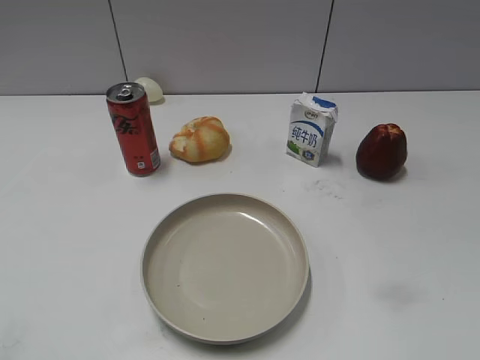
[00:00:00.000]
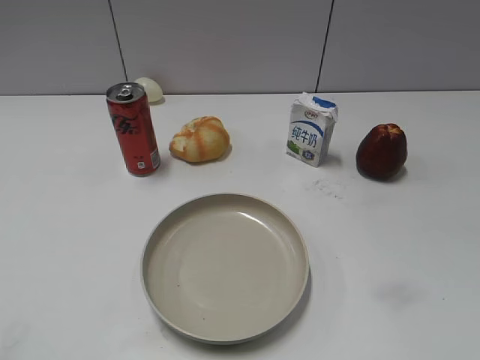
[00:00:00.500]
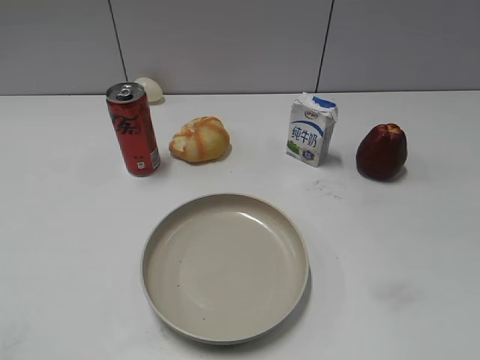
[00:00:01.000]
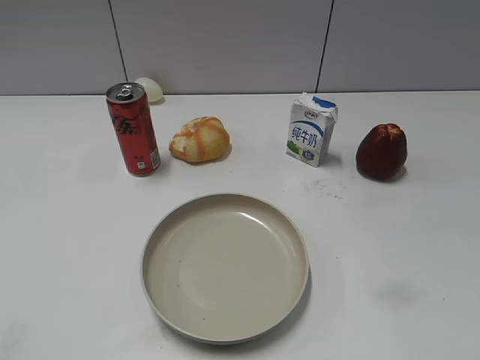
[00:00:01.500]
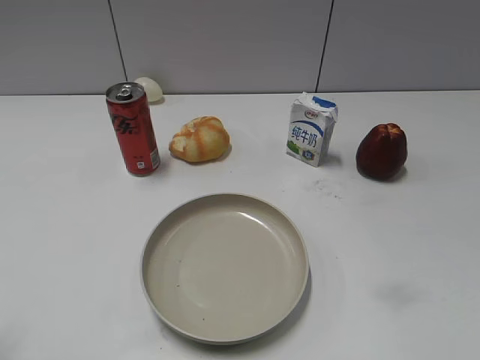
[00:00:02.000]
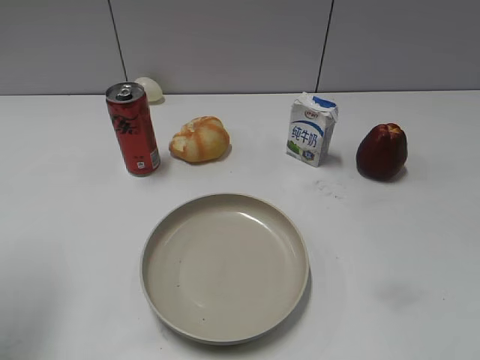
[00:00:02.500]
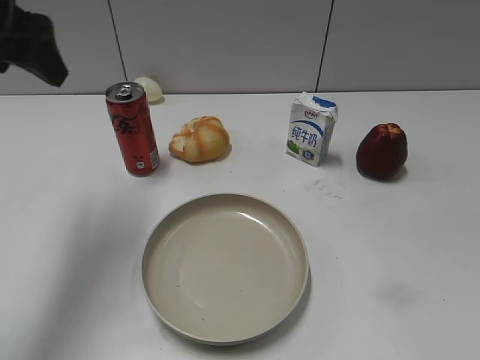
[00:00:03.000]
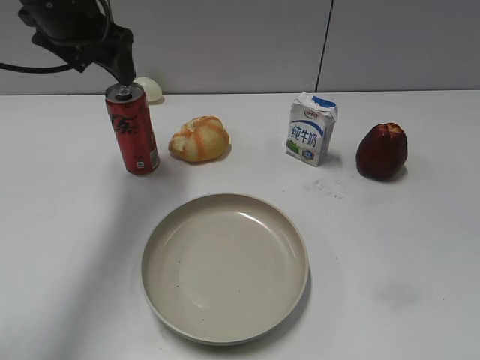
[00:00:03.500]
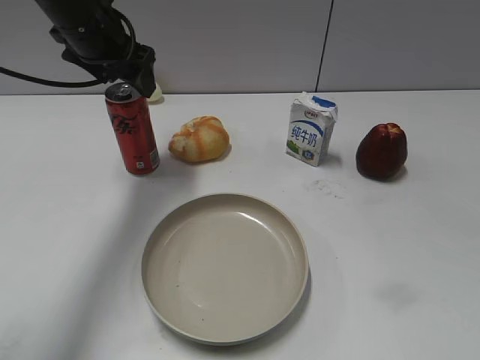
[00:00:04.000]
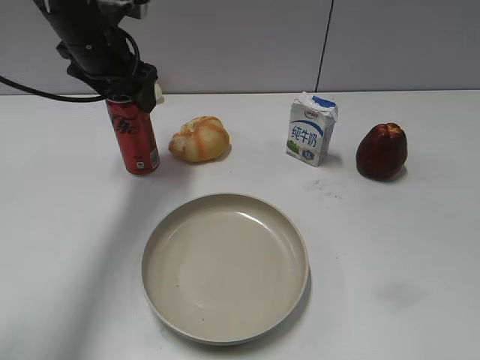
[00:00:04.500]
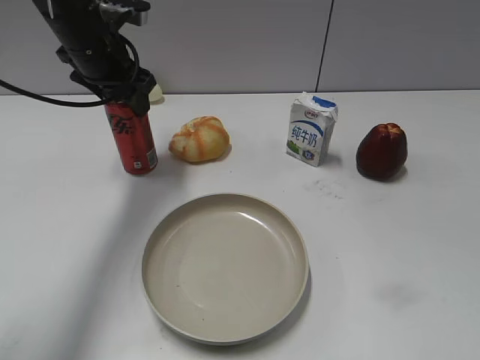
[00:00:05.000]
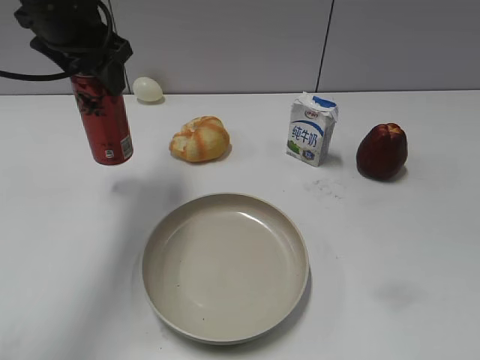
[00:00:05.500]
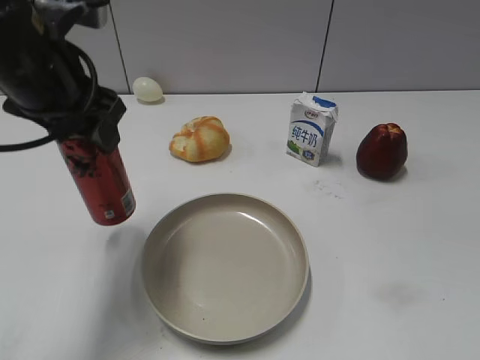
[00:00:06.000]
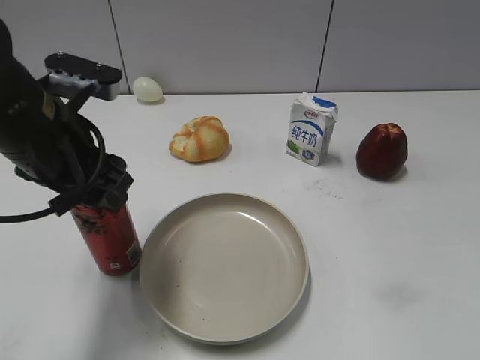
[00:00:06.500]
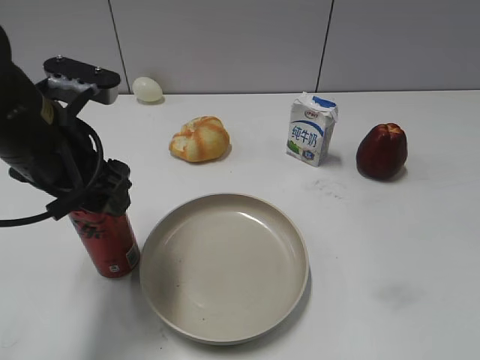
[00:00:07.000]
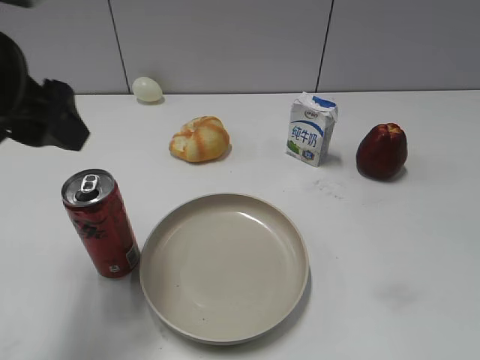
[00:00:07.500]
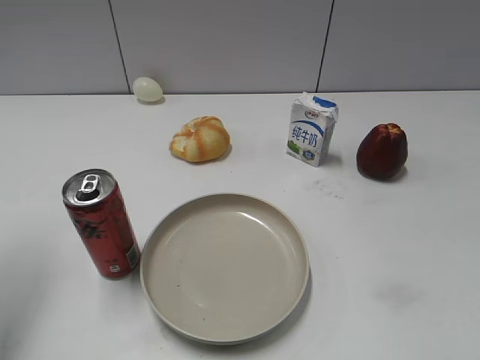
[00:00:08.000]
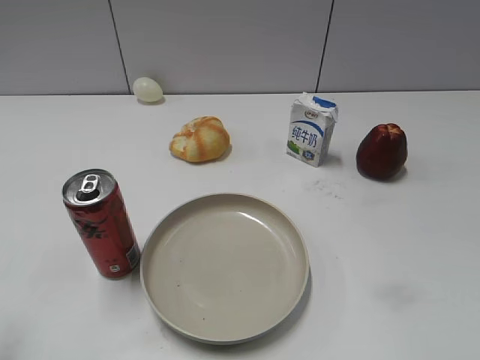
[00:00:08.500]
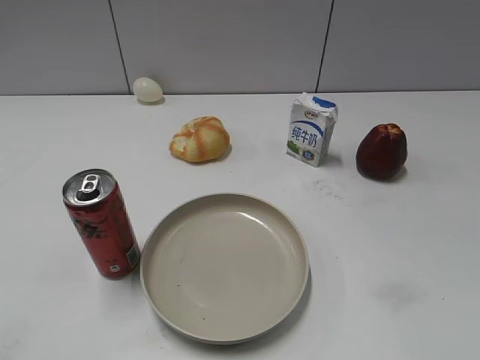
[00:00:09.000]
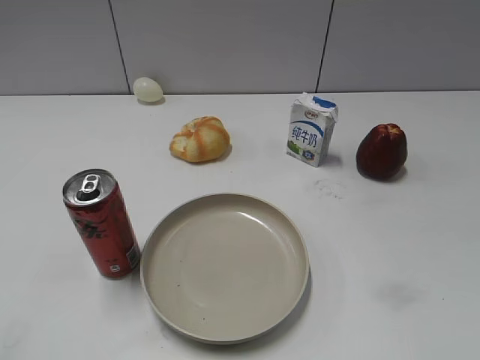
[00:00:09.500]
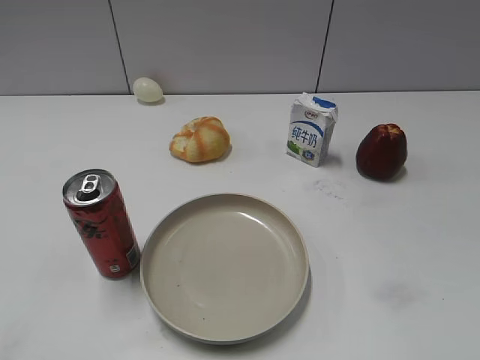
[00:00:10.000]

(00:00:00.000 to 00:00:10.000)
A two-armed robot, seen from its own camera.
Step, 00:00:02.000 - 00:00:04.500: Grasp the cola with left gripper.
Step, 00:00:05.500 - 00:00:07.000: Place the cola on the table with left gripper.
00:00:02.000 - 00:00:04.000: The left gripper shifts approximately 40 cm forward and to the right, and opens.
00:00:04.000 - 00:00:06.000: The left gripper is displaced backward by roughly 10 cm, and closes its fingers.
00:00:06.000 - 00:00:08.000: The left gripper shifts some 15 cm to the left and backward, and opens up.
00:00:08.000 - 00:00:10.000: The left gripper goes some 25 cm backward.
